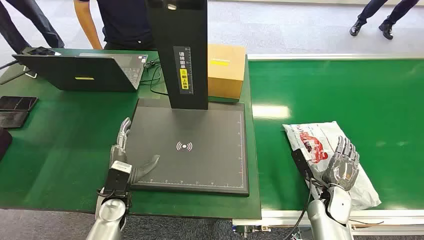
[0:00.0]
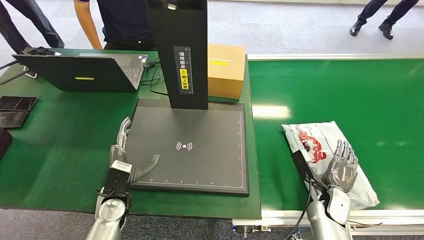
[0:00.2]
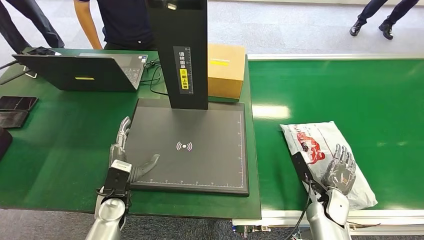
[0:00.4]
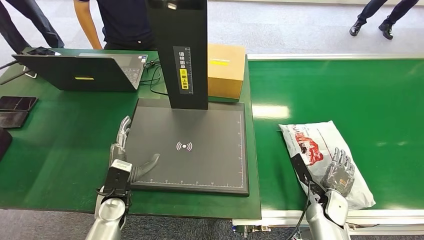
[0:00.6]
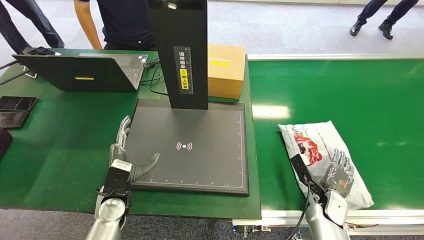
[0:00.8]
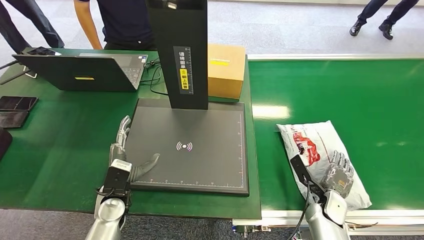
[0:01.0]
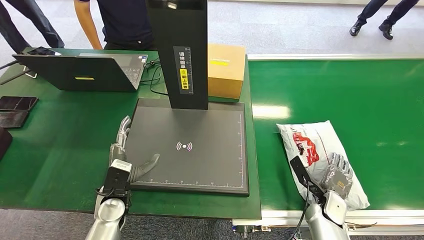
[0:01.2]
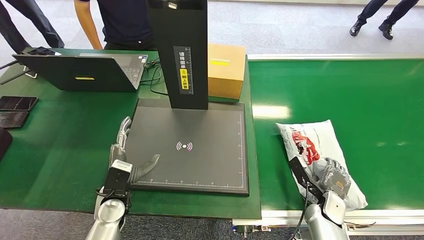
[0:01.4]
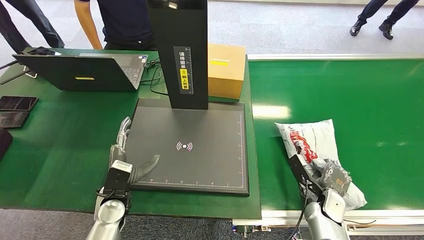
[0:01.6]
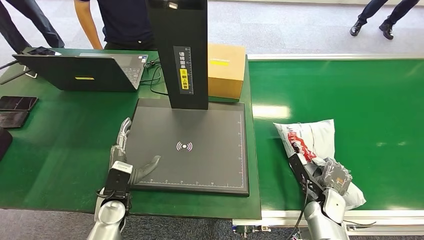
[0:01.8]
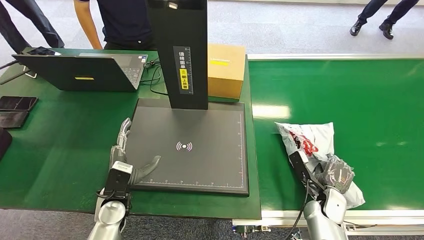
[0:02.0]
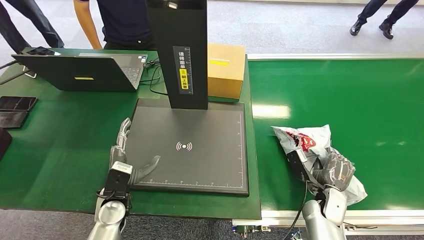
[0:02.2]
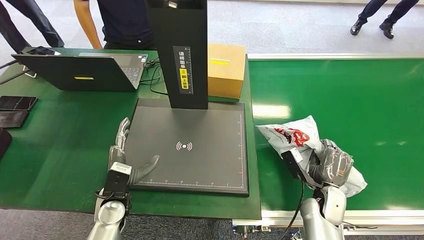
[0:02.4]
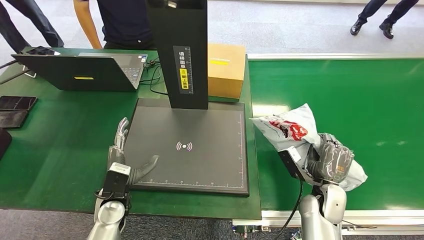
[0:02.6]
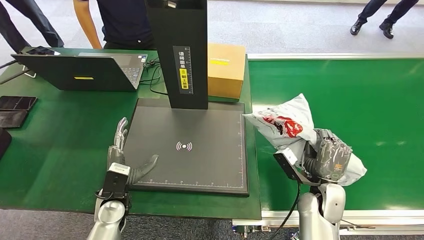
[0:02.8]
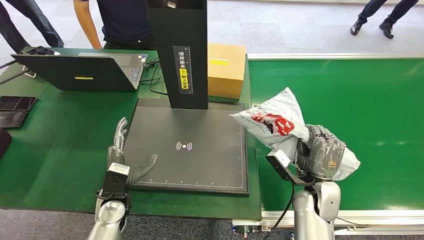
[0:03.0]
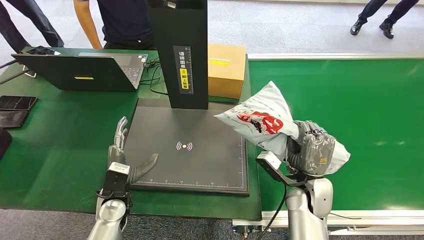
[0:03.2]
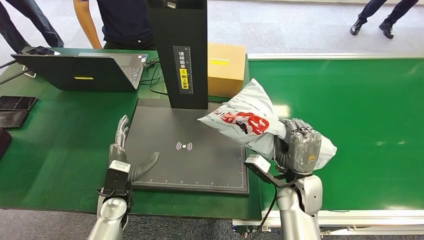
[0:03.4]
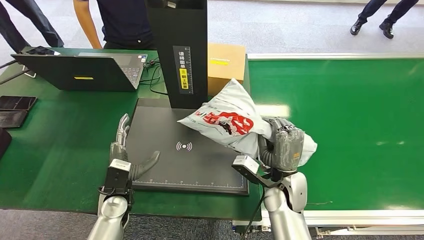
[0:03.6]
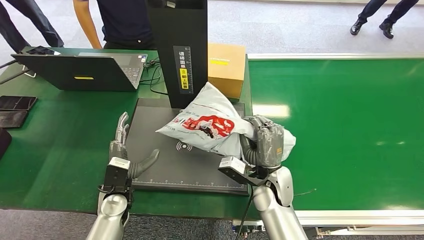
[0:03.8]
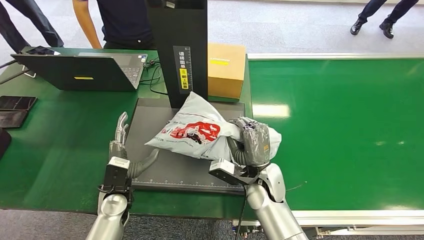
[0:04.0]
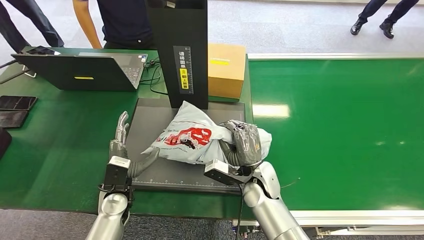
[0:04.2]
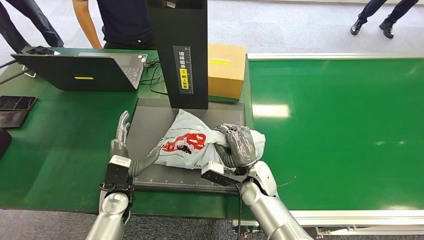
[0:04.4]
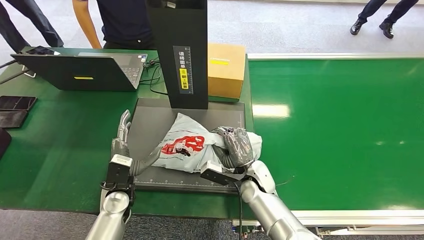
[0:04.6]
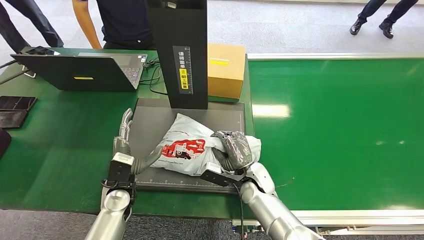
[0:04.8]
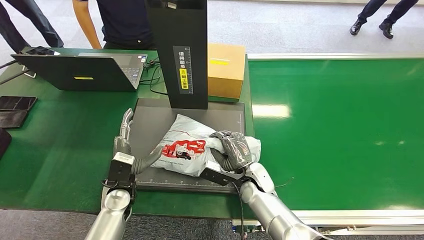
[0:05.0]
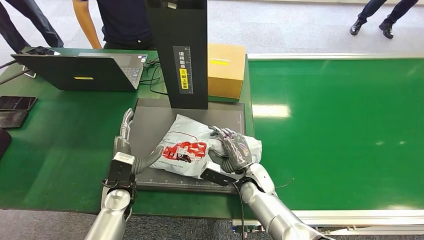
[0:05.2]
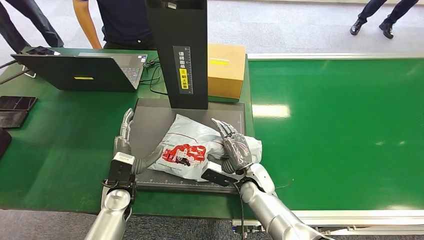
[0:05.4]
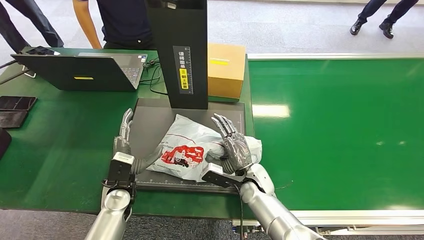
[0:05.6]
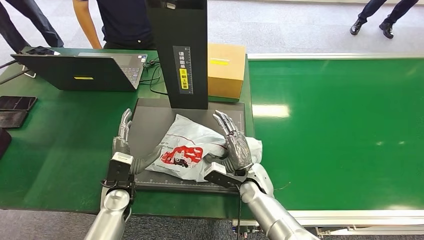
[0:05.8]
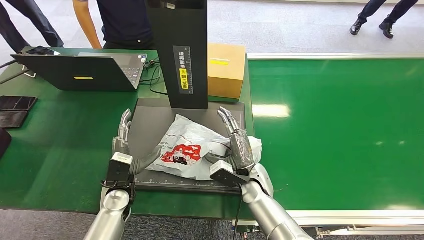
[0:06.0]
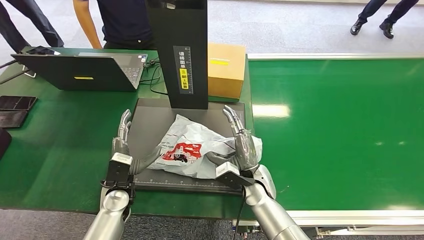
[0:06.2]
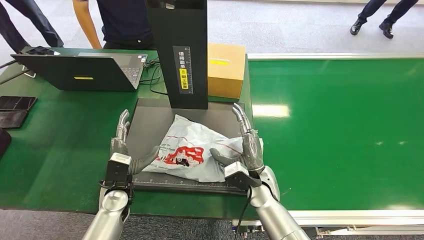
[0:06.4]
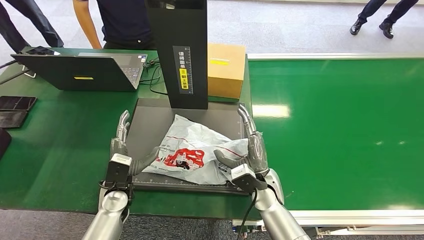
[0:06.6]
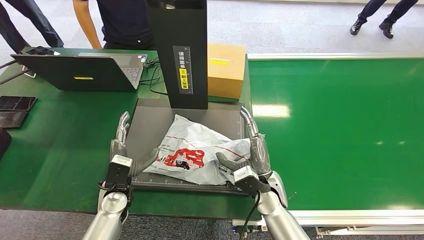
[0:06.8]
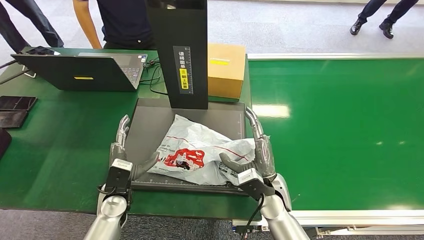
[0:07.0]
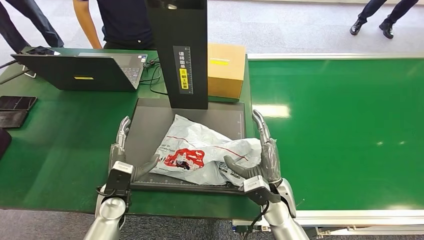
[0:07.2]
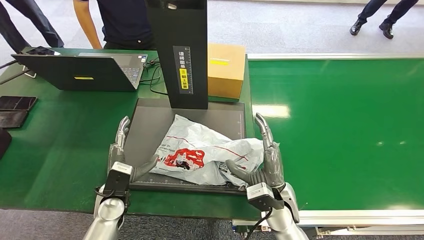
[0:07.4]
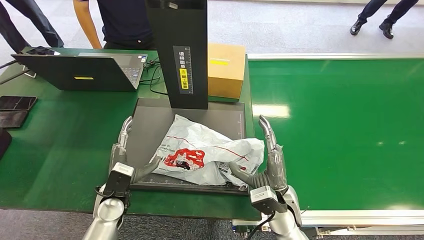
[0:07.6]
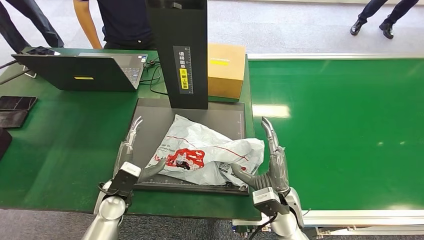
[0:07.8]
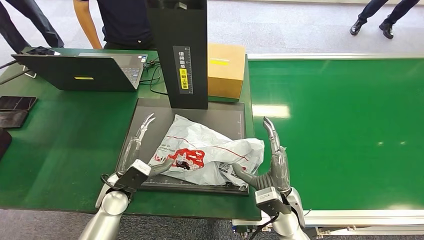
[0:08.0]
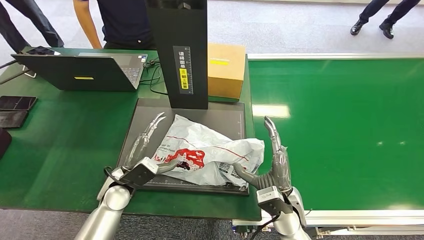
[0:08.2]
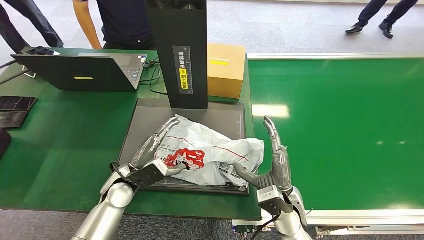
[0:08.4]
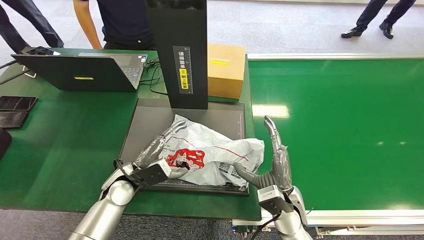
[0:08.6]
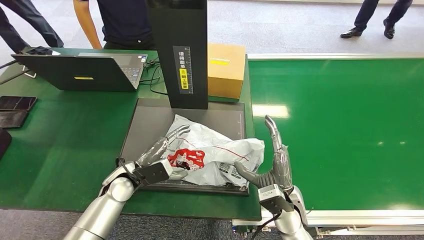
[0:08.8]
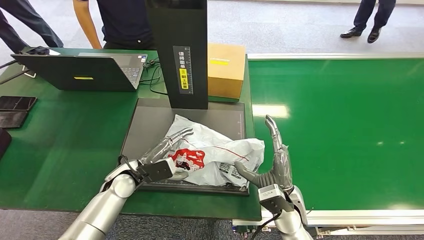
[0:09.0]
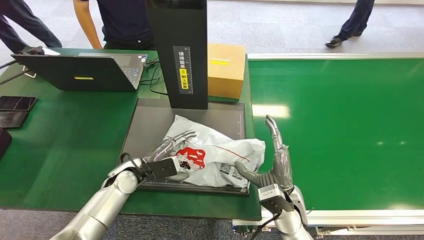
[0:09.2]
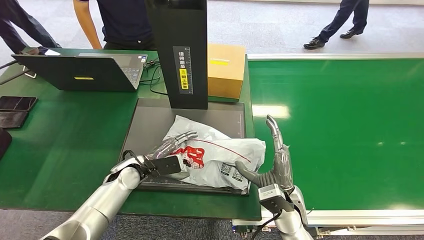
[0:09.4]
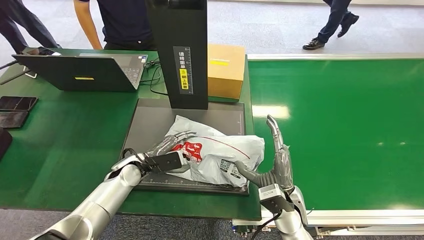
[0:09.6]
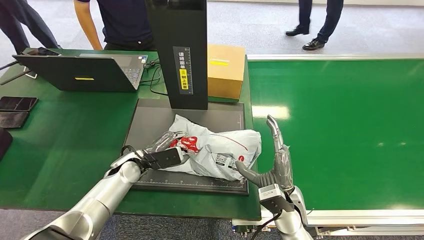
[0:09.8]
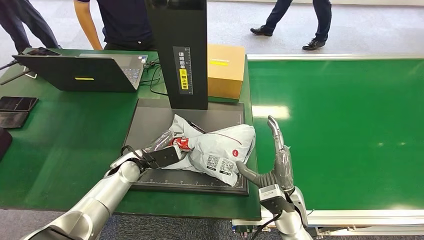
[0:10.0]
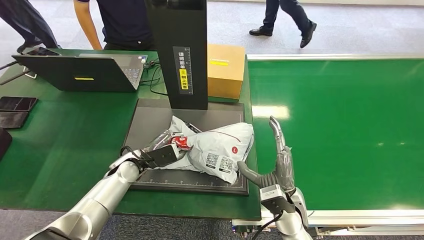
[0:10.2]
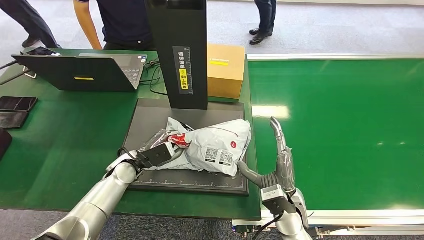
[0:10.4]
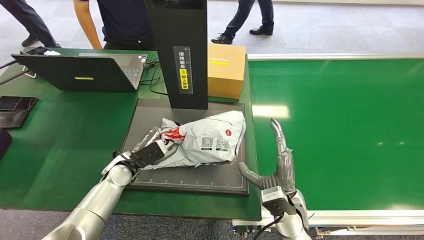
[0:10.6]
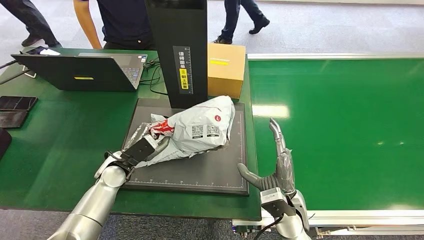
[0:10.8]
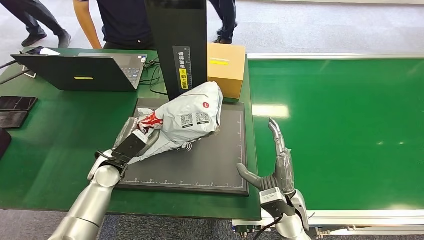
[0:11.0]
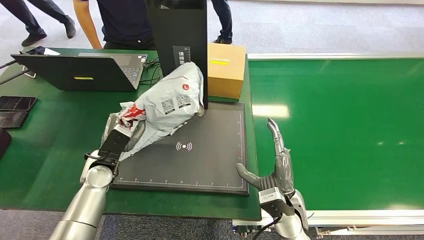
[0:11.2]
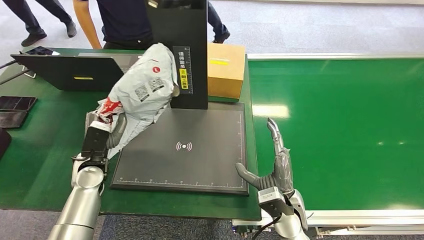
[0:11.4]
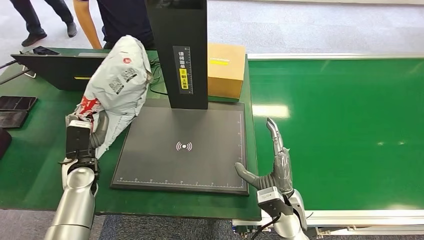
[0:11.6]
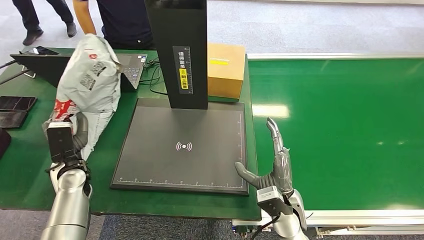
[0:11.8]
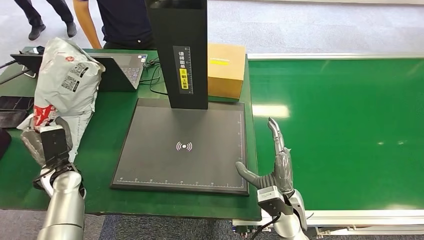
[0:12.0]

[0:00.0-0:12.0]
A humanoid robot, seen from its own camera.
Step, 0:00.0 to 0:03.2: Pick up the package from the conveyor belt.
Step, 0:03.4 to 0:05.8: Place the package onto the inbound machine.
Step, 0:06.0 to 0:11.2: Pick up the package from the inbound machine.
0:01.6 to 0:03.0: The right hand is displaced upward and to the left by approximately 10 cm.
0:03.0 to 0:04.4: The right hand moves to the left, roughly 15 cm.
0:04.4 to 0:06.0: The hands make only small movements.
0:06.0 to 0:07.6: The right hand travels backward and to the right by roughly 10 cm.
0:07.6 to 0:09.0: The left hand goes about 5 cm forward.
0:09.0 to 0:10.4: The hands stay close to where they were, moving slightly.

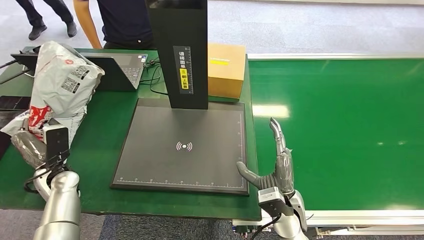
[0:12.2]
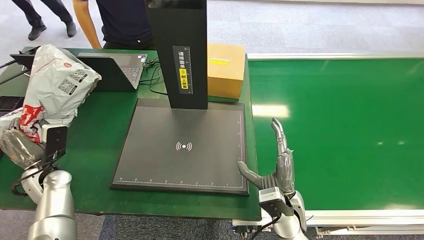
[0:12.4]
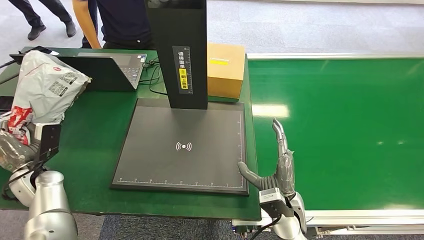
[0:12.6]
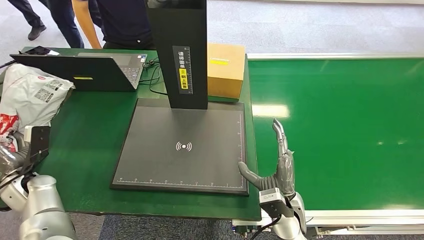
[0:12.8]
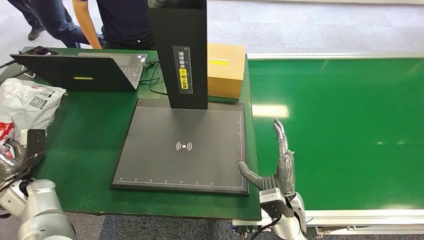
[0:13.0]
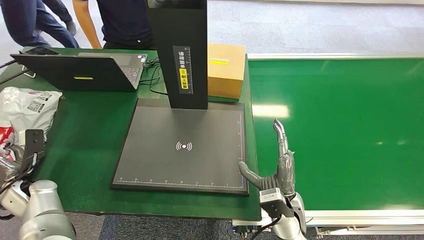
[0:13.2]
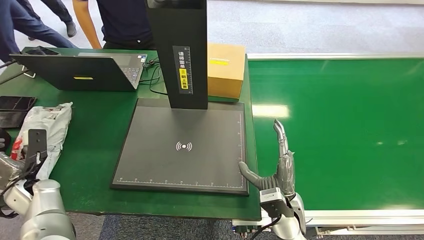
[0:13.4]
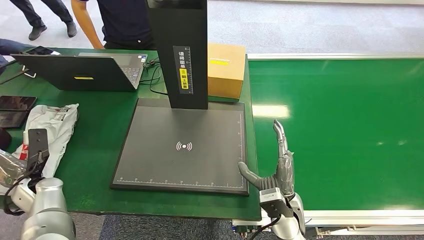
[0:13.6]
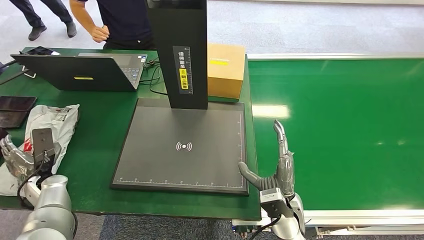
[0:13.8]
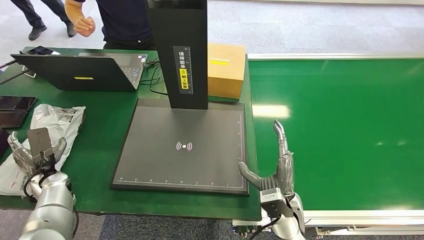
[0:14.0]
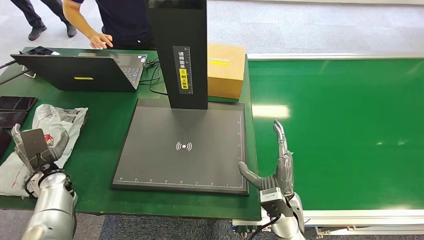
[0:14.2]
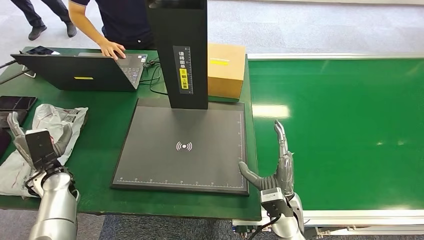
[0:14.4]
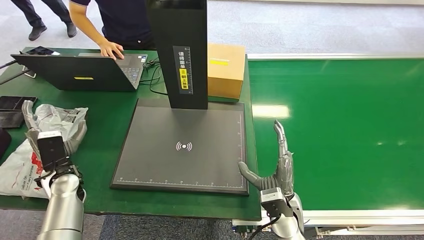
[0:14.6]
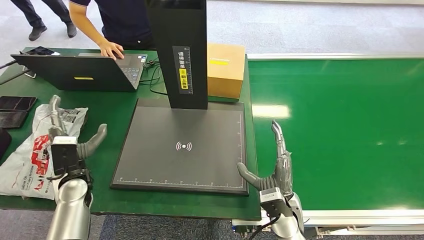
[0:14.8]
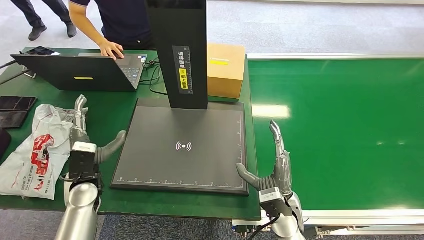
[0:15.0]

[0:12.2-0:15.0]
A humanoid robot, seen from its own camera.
Step, 0:12.2 to 0:15.0: Place the package into the parcel locker.
0:12.2 to 0:13.6: The left hand heads to the left, covering approximately 5 cm.
0:13.6 to 0:15.0: The left hand heads to the right, covering some 15 cm.
